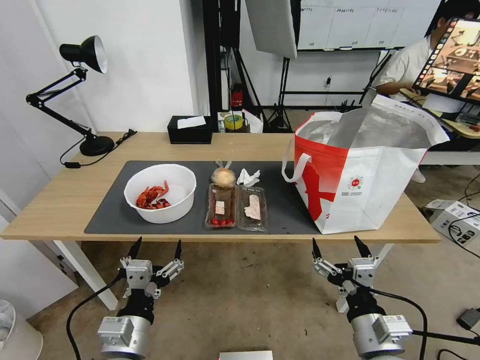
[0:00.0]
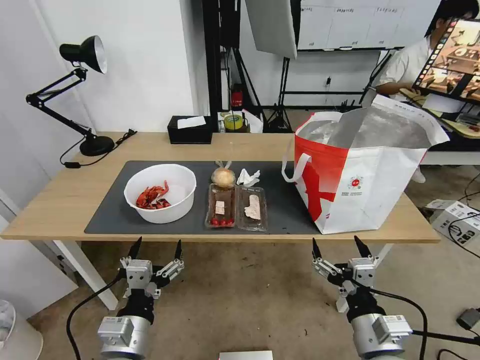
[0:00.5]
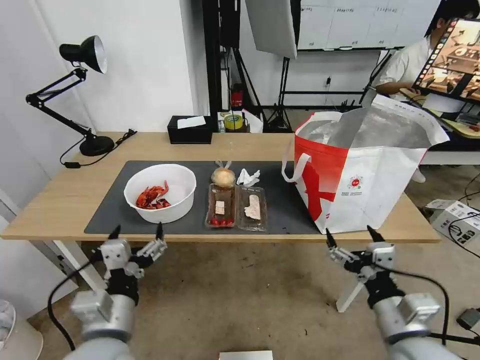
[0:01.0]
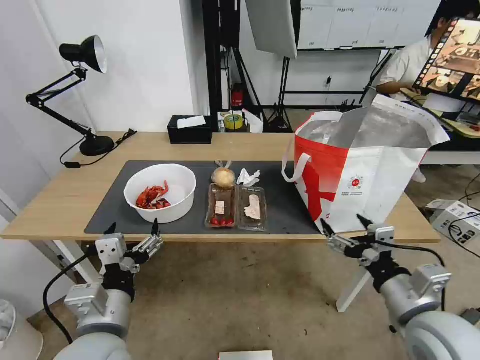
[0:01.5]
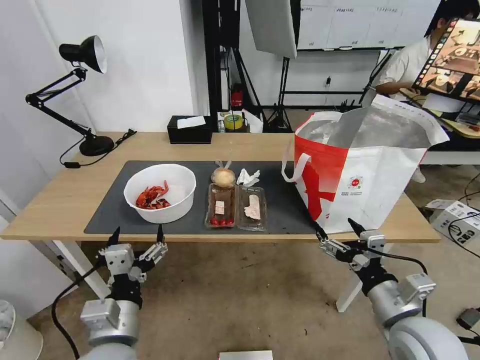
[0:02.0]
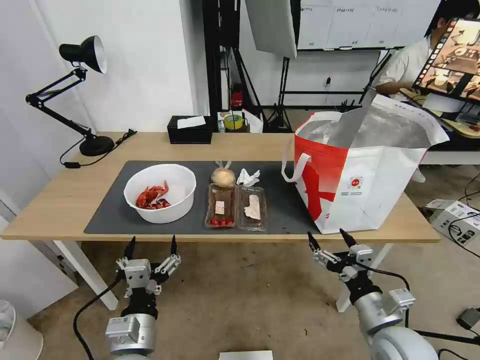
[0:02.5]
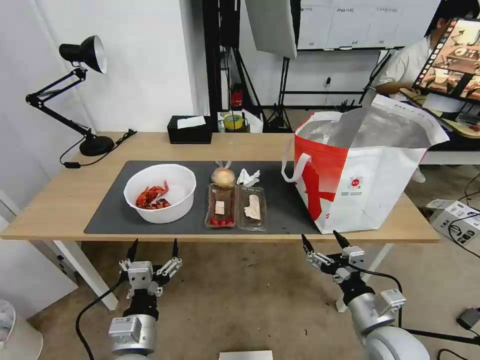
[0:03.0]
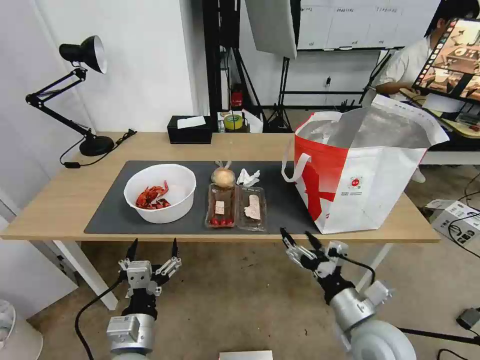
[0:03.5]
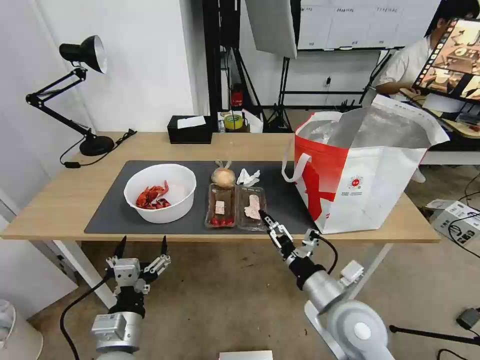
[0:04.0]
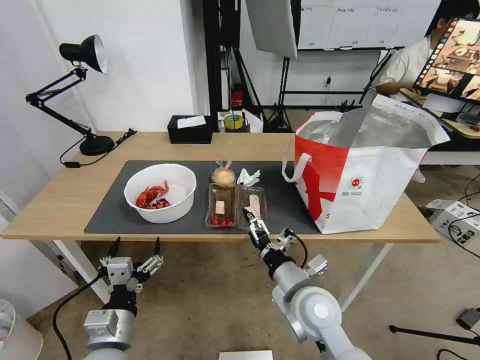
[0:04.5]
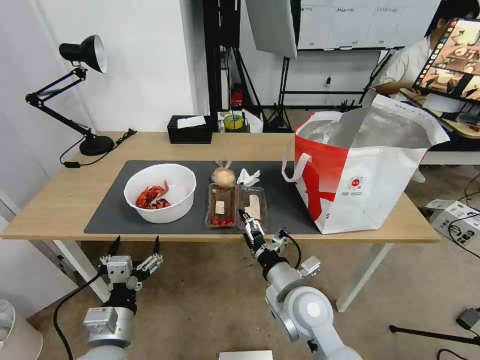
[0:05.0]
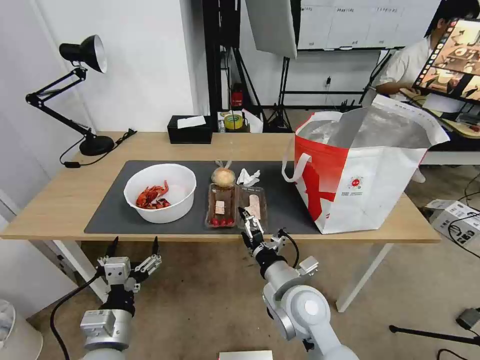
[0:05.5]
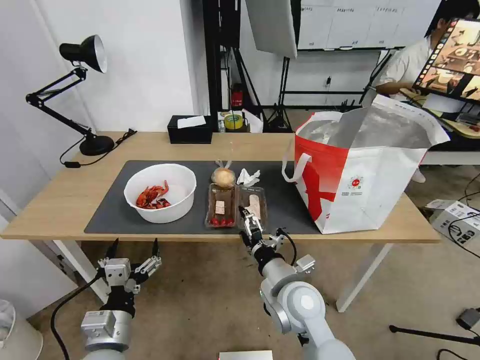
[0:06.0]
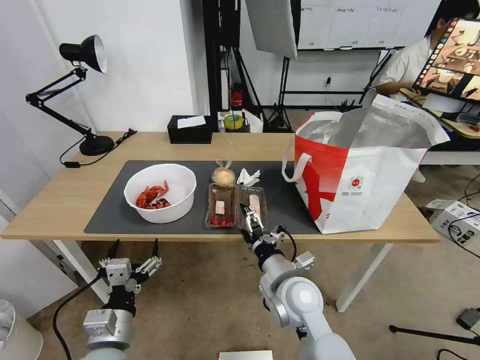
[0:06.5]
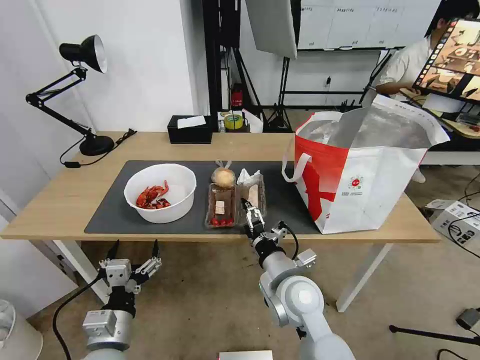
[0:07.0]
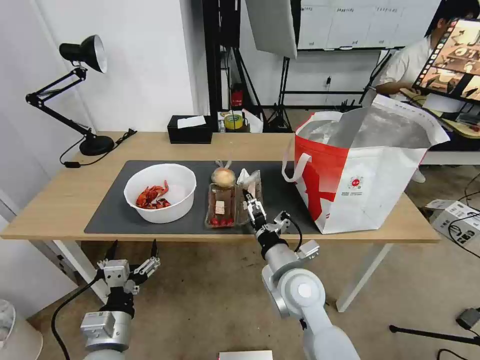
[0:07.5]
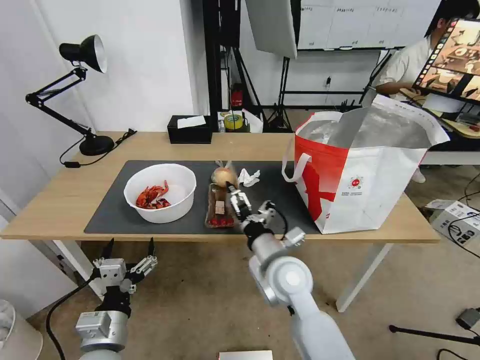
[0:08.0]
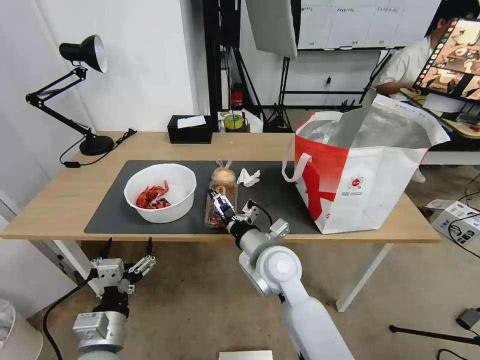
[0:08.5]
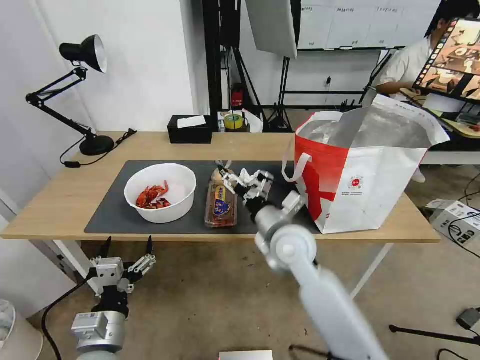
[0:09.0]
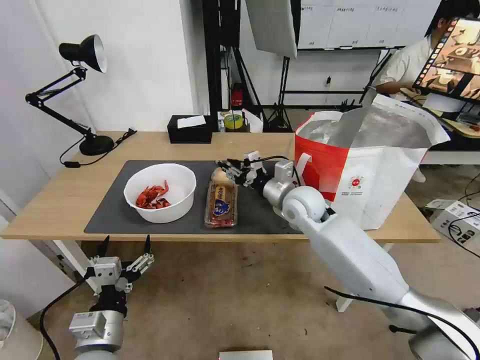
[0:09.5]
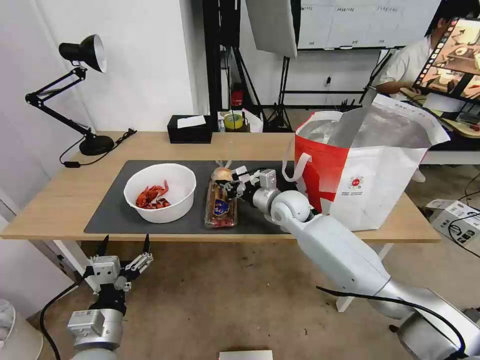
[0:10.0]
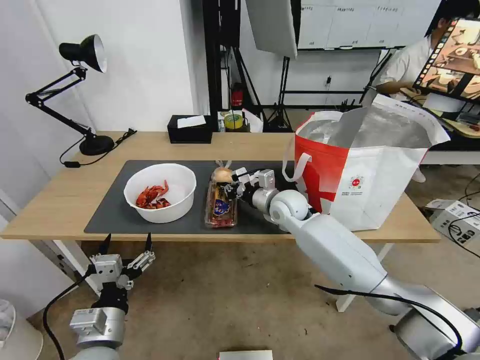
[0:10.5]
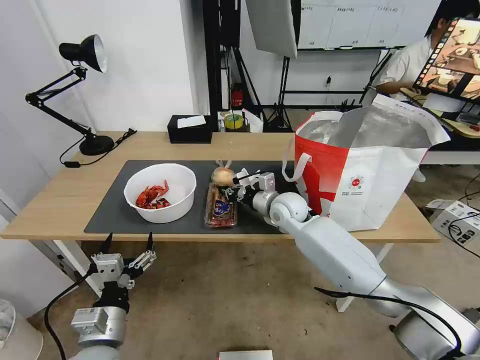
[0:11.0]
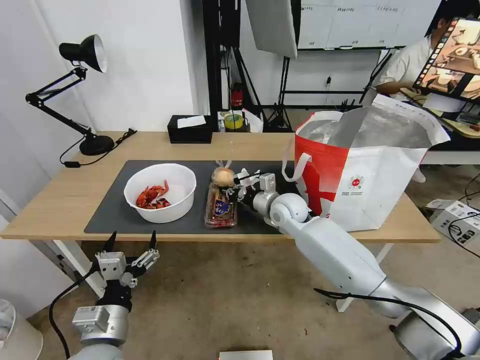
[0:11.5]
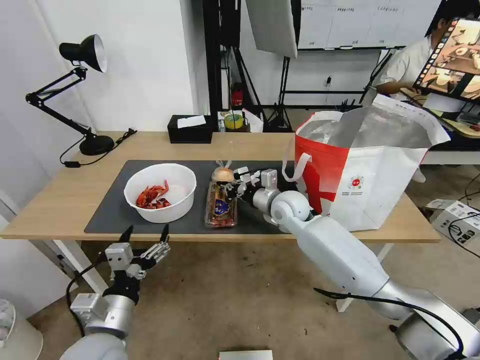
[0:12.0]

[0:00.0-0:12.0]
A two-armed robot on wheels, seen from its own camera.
Task of the whole recording: Pick up the trash from the table and place it into the takeout bag.
0:02.0 to 0:04.0: The right gripper is displaced to the left by about 10 cm. The left gripper shifts about 5 cm downward.
0:04.0 to 0:06.0: The right gripper moves to the left, about 10 cm.
0:06.0 to 0:08.0: The right gripper changes place by approximately 5 cm.
0:08.0 to 0:10.0: The right gripper goes about 20 cm forward, and closes.
0:10.0 to 0:12.0: There are only small adjustments of the grippers.

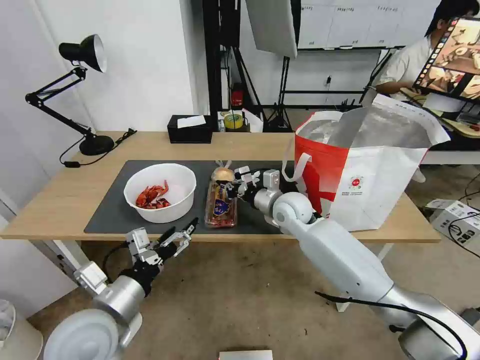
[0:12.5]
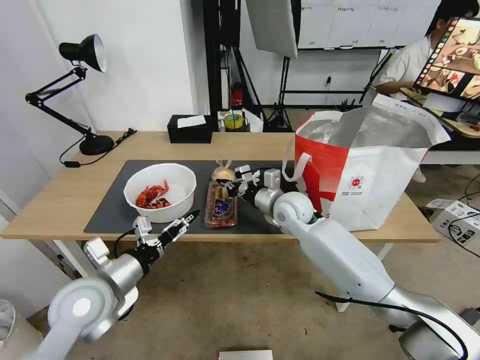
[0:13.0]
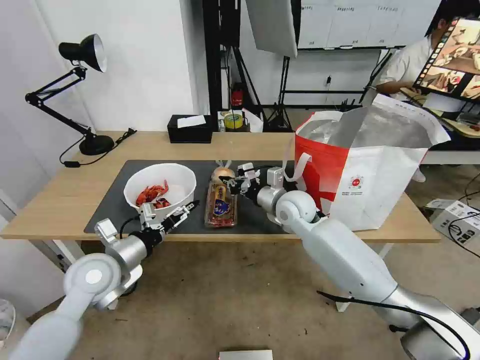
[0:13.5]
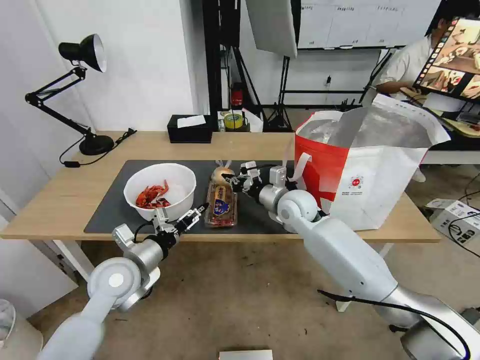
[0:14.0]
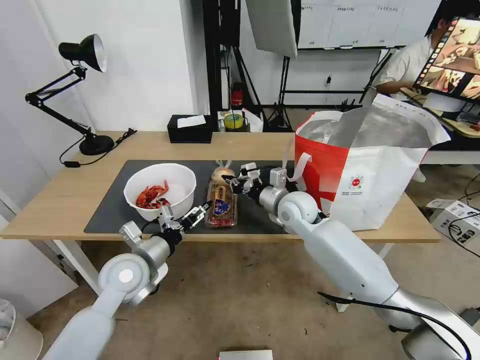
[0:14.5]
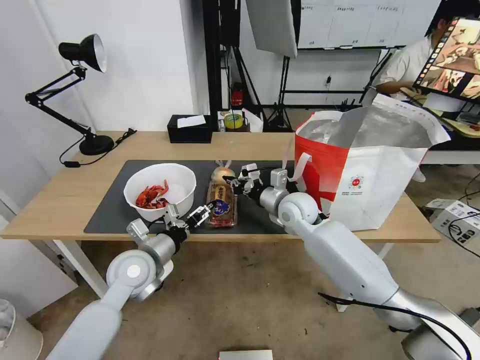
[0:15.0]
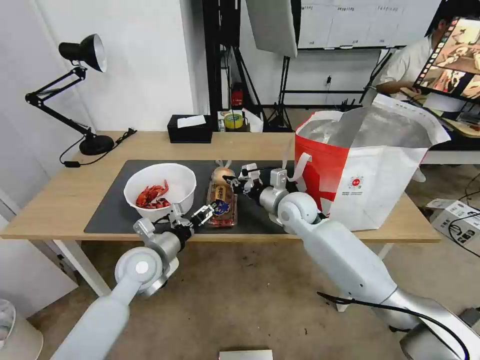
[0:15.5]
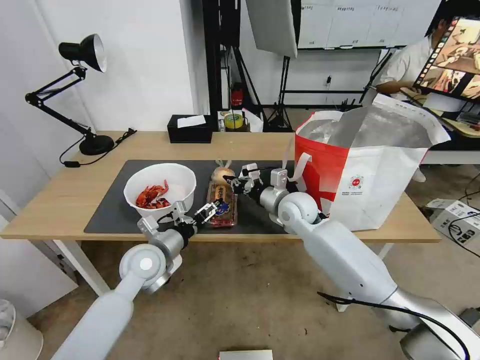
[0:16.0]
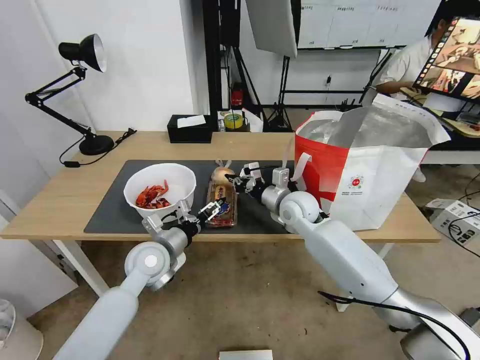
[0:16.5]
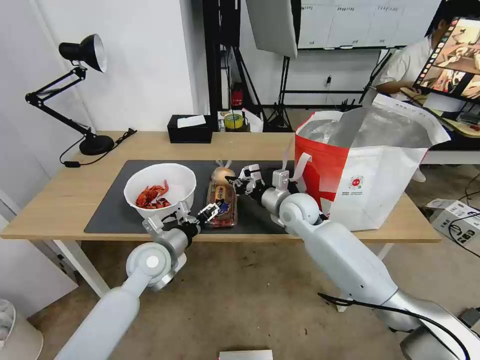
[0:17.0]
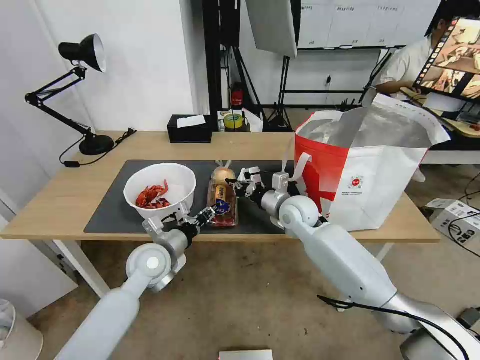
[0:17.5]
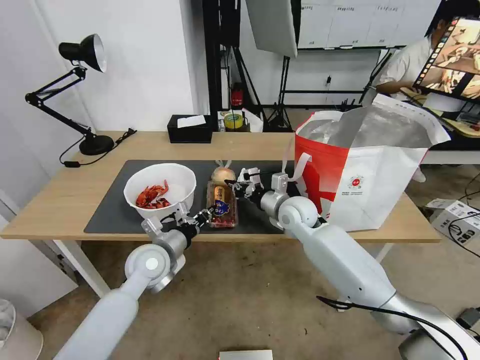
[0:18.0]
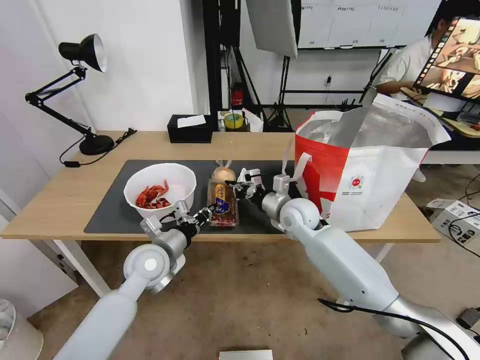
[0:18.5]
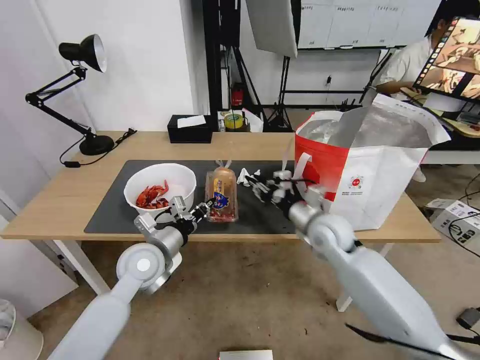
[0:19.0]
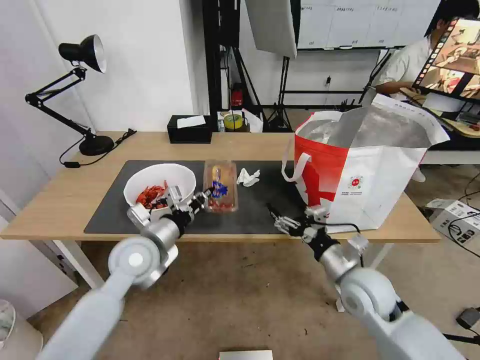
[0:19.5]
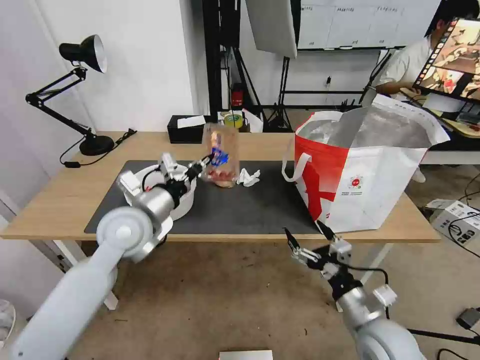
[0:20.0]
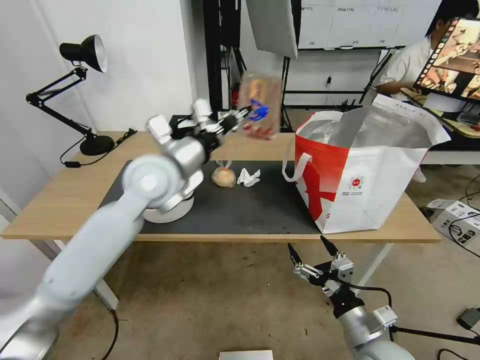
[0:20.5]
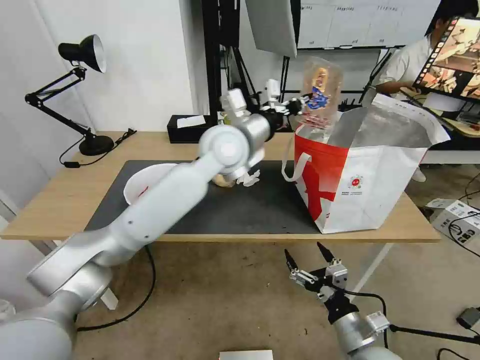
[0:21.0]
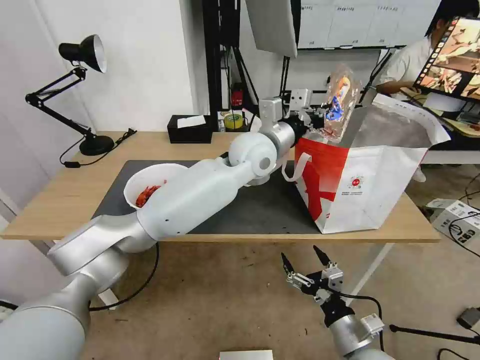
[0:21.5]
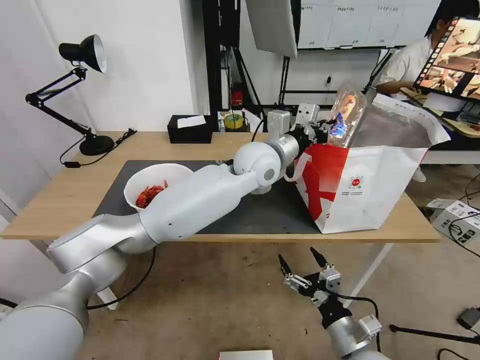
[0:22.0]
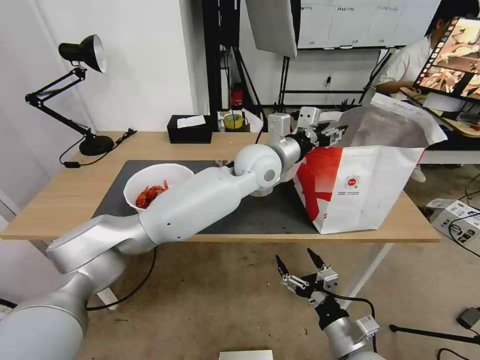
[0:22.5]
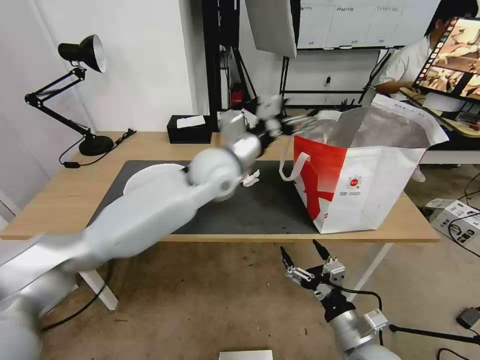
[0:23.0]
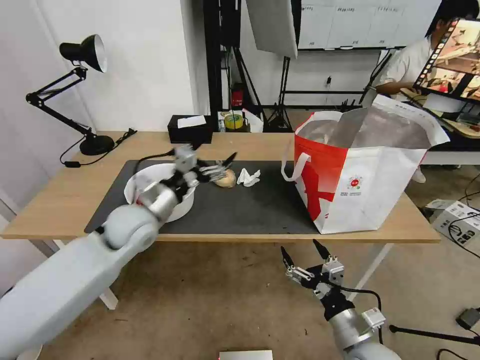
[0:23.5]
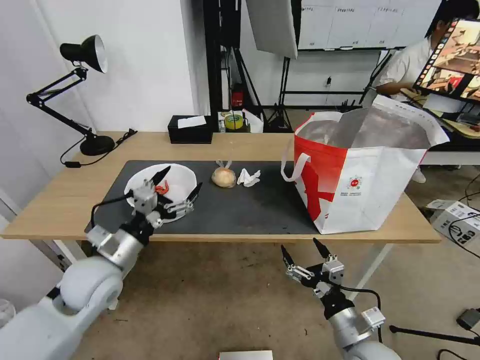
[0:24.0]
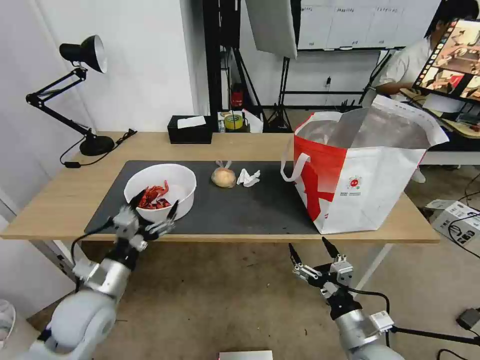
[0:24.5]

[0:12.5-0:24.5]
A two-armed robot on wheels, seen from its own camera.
Task of the whole recording: Pick up the trash from the table and place it into the takeout bag.
0:12.5 to 0:14.5: The left gripper is displaced forward by about 10 cm.
0:14.5 to 0:16.5: The left gripper ends up approximately 5 cm from where it was.
0:16.5 to 0:18.5: The left gripper closes its fingers.
0:18.5 to 0:20.5: The left gripper travels upward by some 20 cm. The right gripper heads backward, covering some 30 cm, and opens its fingers.
0:20.5 to 0:22.5: The left gripper goes some 20 cm to the right, and opens.
0:22.5 to 0:24.5: The left gripper heads to the left, backward and downward, covering roughly 40 cm, and opens up.

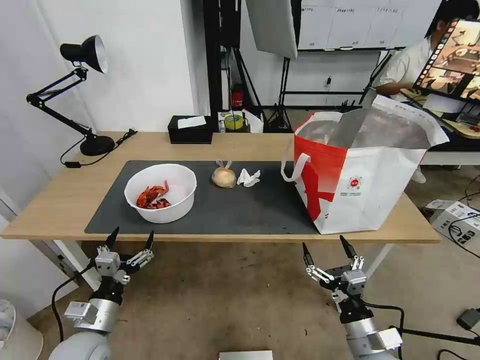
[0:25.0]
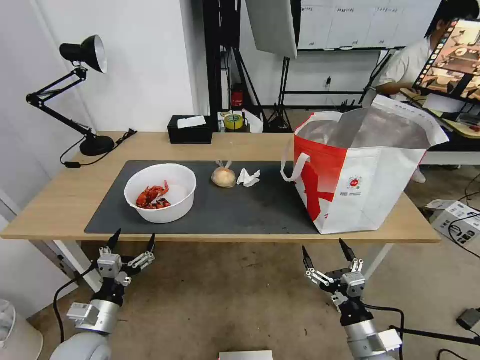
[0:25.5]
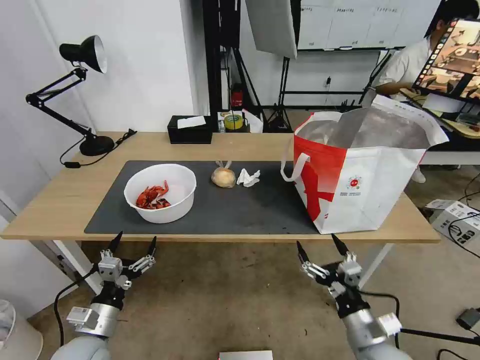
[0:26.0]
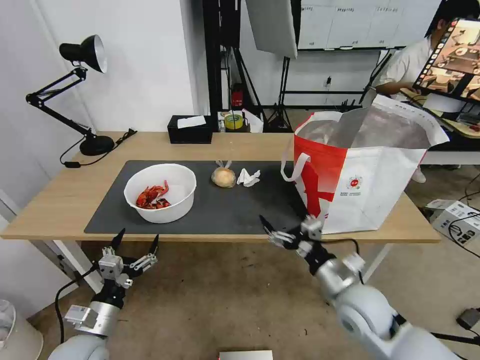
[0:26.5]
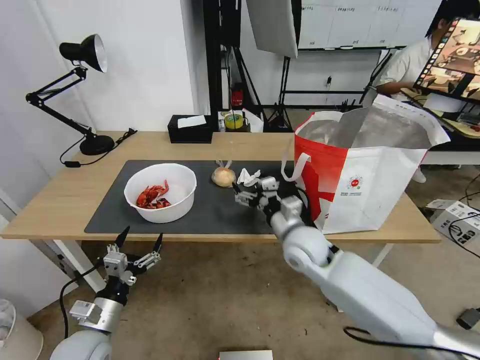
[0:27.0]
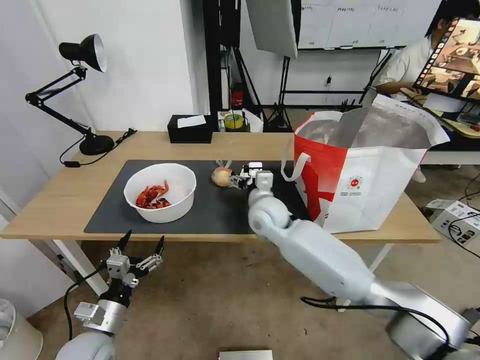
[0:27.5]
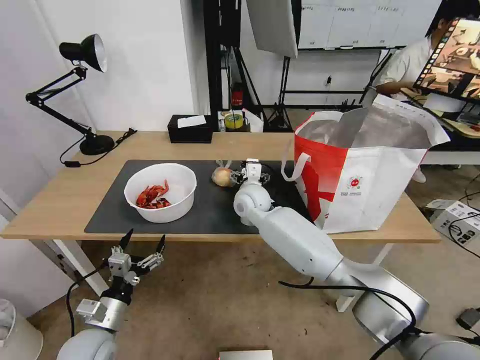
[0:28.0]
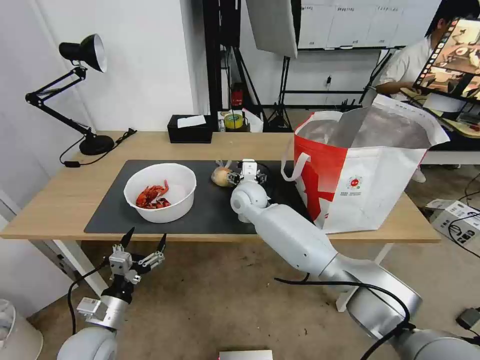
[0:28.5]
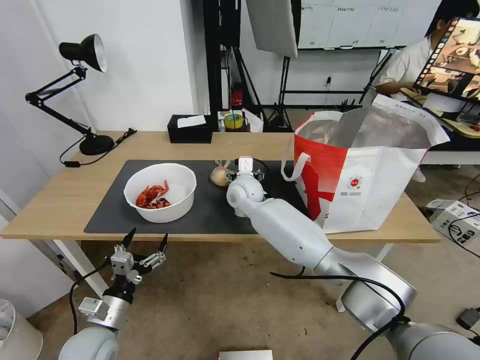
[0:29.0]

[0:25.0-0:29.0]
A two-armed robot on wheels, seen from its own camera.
Task of the whole recording: Pick up the trash from the table and place it into the takeout bag.
0:25.0 to 0:27.0: The right gripper heads forward, to the left and upward, covering about 30 cm.
0:27.0 to 0:29.0: The right gripper moves forward and to the left, approximately 20 cm.
